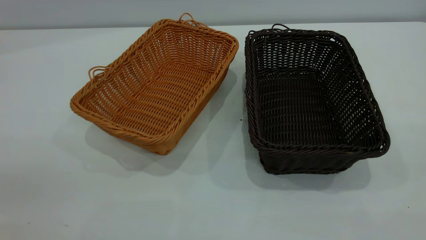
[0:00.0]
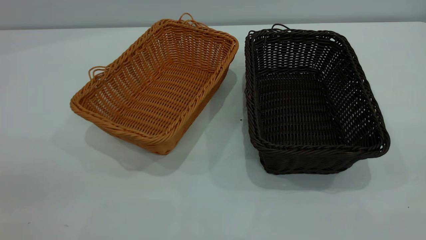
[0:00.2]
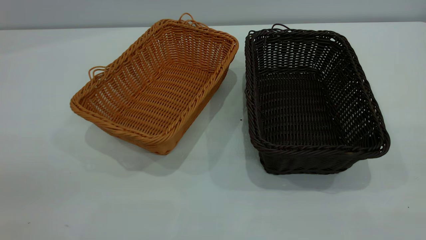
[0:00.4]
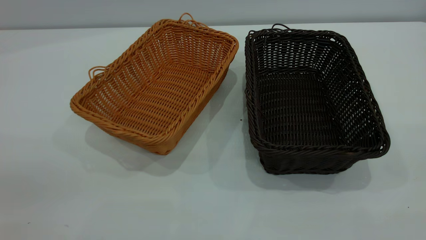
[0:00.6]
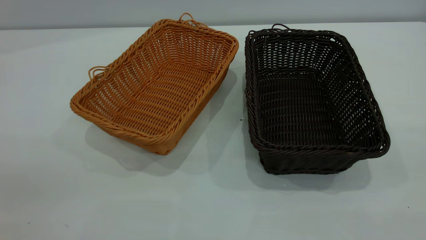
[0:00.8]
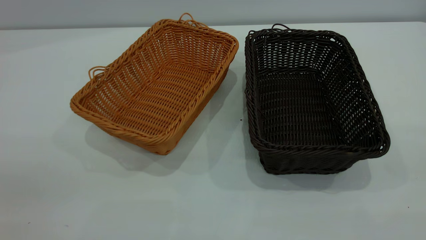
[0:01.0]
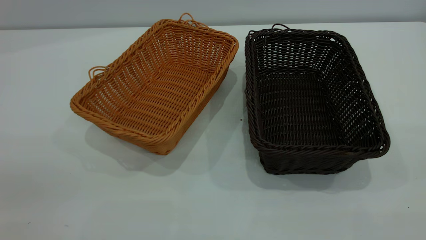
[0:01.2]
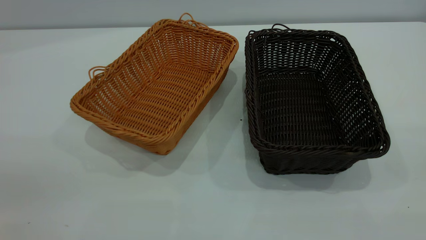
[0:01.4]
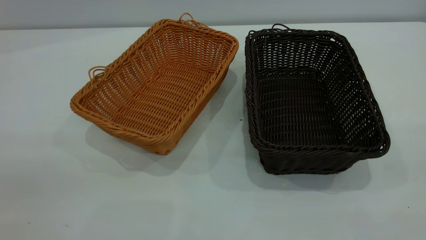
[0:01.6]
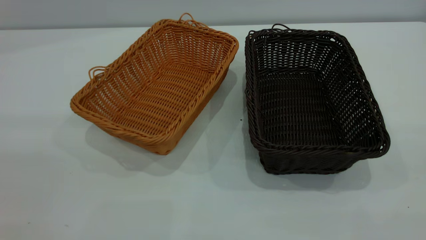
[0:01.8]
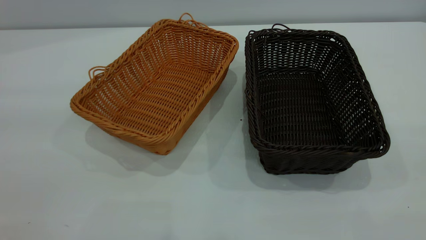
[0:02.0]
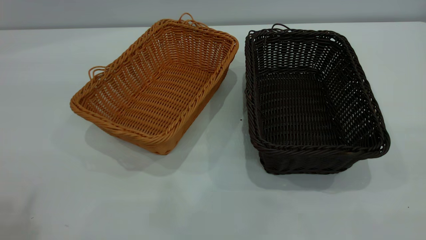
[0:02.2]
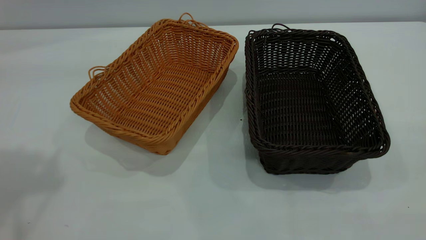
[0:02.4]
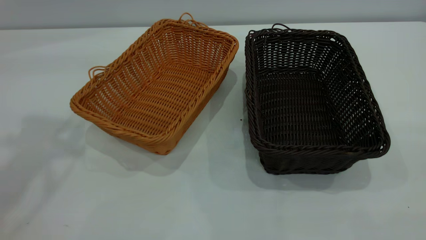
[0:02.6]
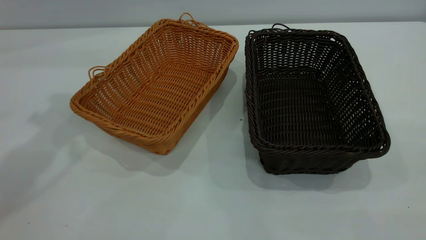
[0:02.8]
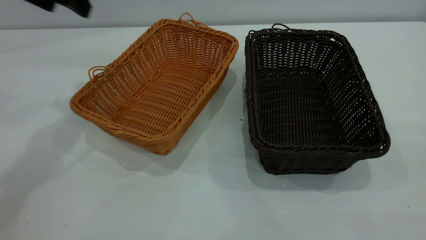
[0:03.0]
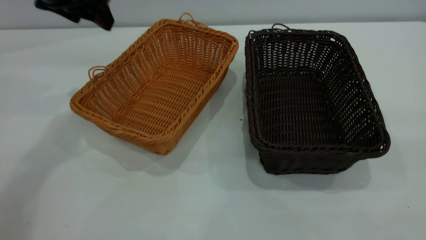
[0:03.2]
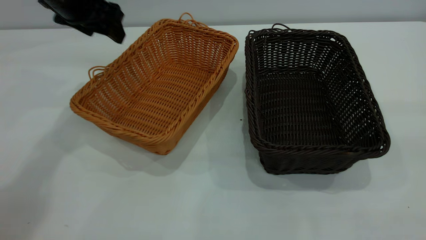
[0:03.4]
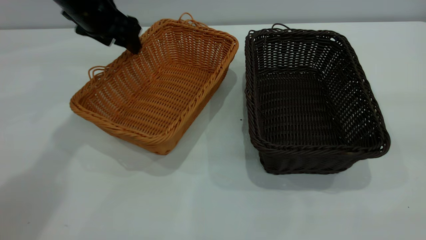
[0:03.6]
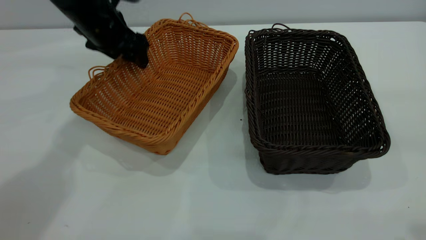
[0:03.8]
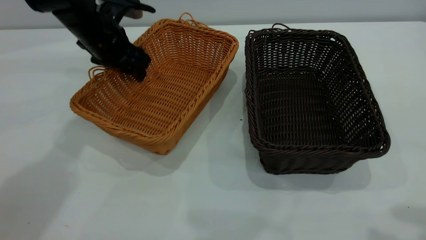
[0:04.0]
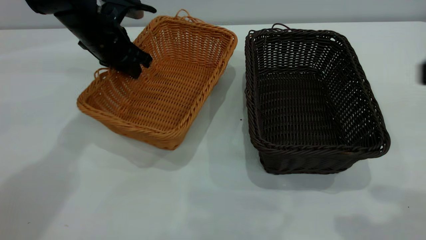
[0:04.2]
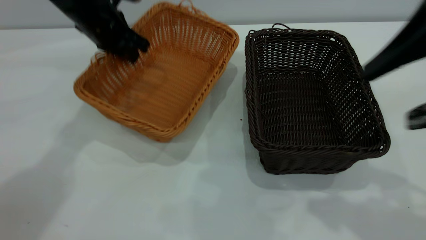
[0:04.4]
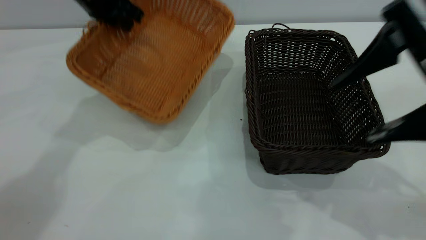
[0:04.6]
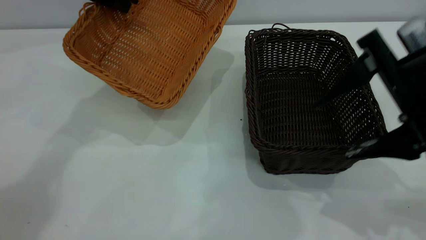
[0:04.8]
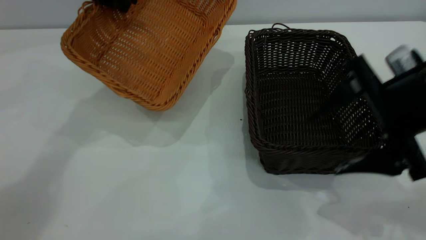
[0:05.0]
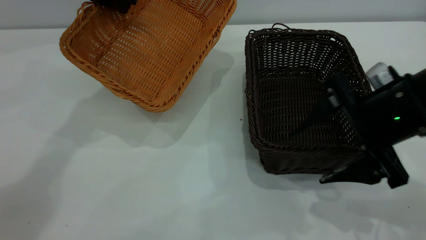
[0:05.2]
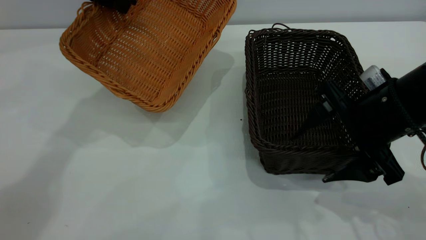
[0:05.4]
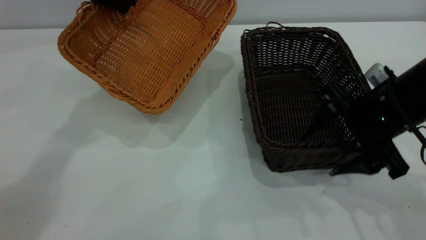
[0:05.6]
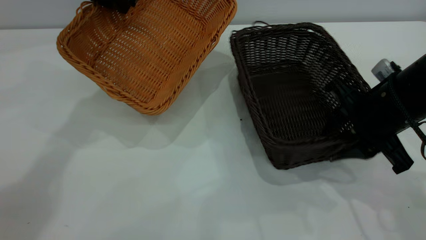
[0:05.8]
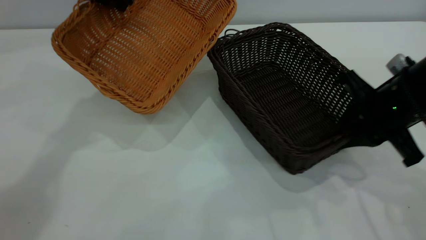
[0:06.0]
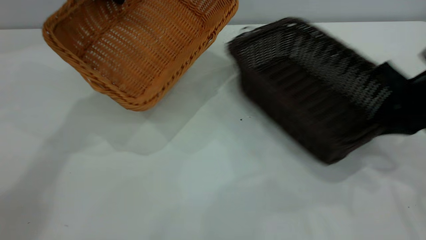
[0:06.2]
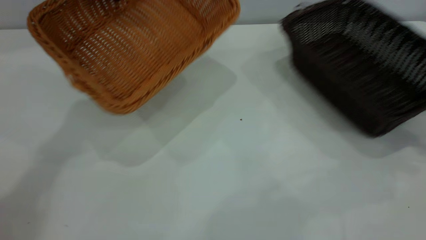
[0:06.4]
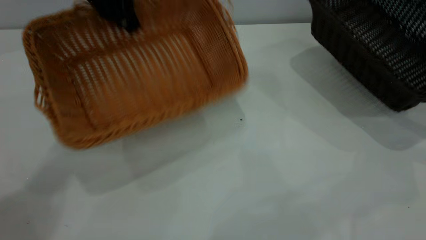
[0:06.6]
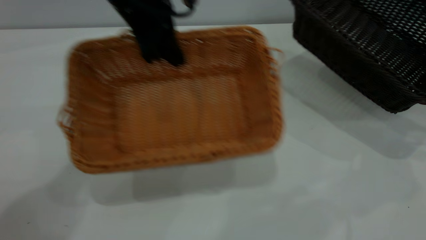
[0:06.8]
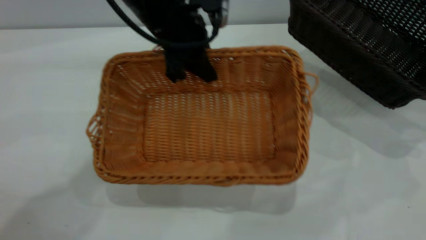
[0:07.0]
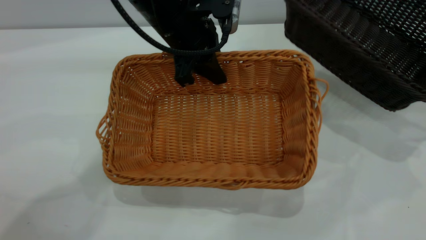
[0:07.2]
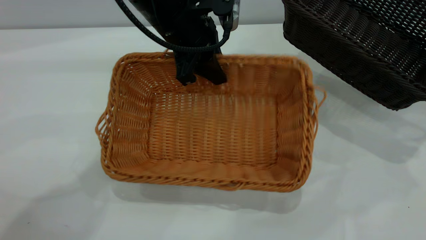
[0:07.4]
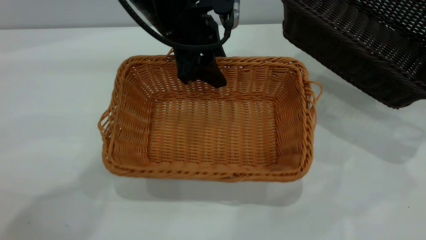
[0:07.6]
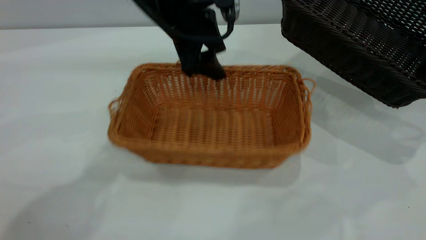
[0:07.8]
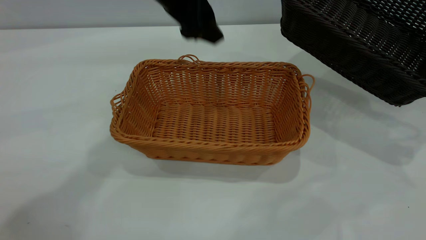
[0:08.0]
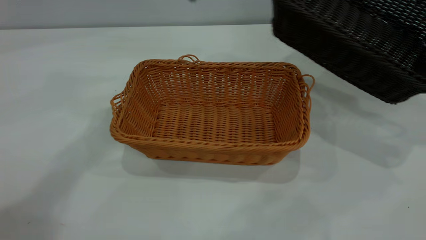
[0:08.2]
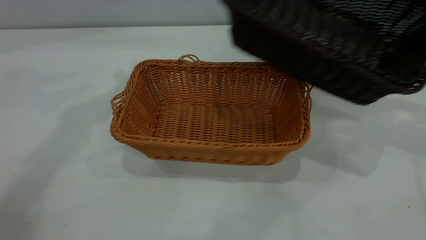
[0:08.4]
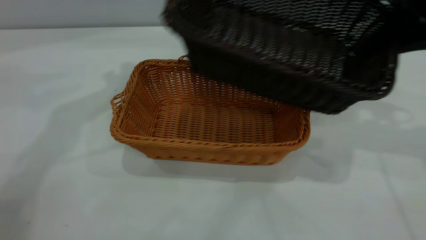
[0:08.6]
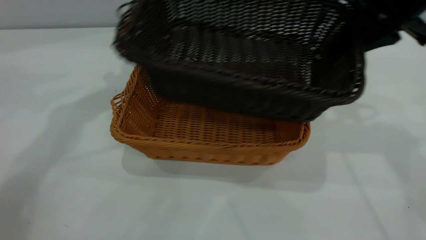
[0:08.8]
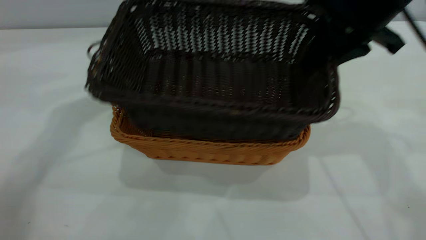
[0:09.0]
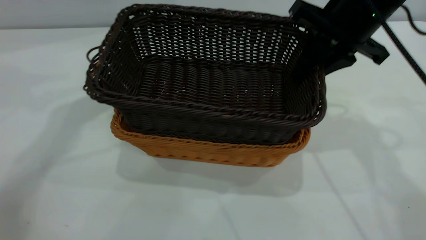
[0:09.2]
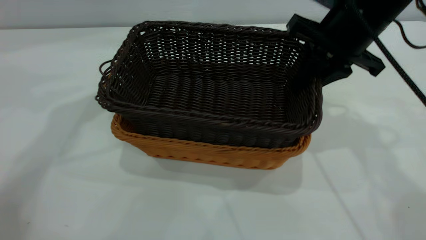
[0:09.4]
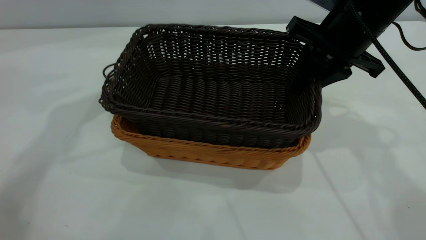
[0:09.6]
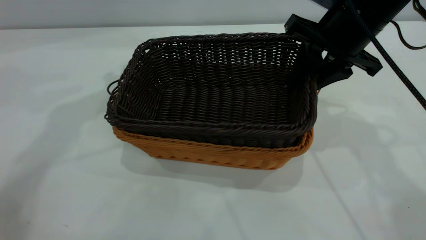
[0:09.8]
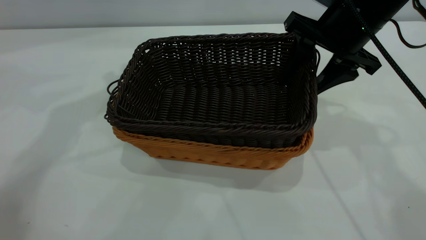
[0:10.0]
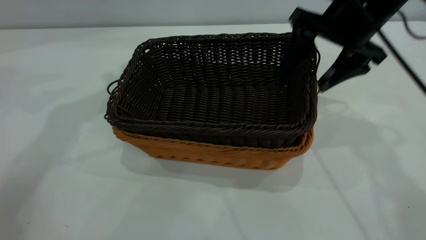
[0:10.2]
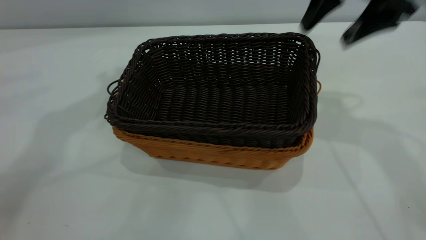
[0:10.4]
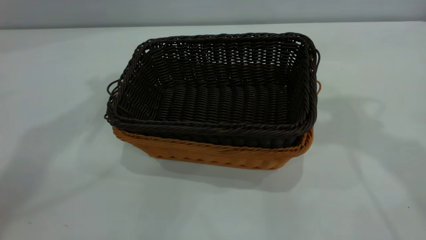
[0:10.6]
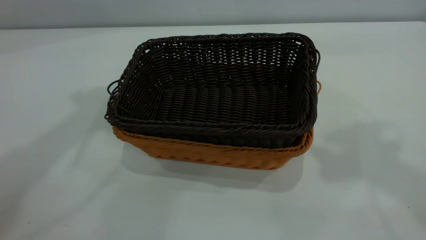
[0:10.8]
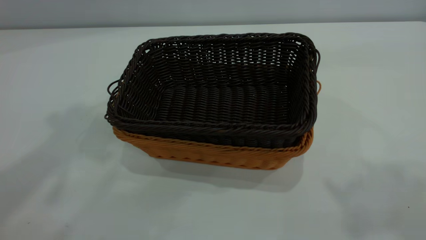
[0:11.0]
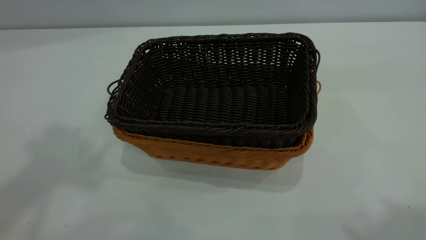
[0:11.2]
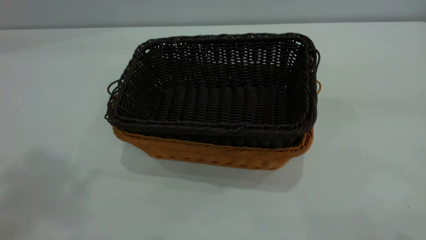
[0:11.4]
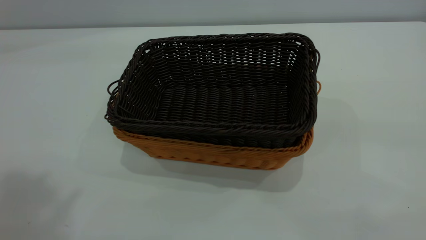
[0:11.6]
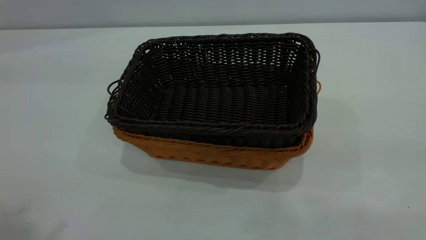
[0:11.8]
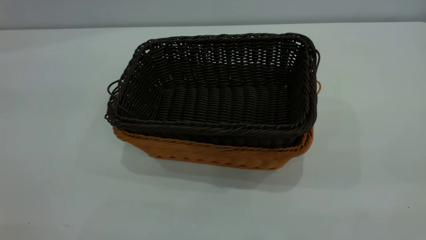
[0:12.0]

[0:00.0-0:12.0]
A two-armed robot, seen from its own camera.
Task of the whole recording: the left gripper grasp the brown basket and place it in the center of the table, the right gripper grasp the black basket and place it inside the brown one.
Step, 0:00.0 to 0:06.2: Pick up the light basket with the right gripper.
Step, 0:06.6 to 0:07.8: Place the light-colored basket in the center.
Step, 0:08.2 to 0:10.2: Place the dark basket on top of the light basket.
0:01.6 to 0:03.0: The left gripper goes about 40 cm forward.
0:03.0 to 0:04.4: The right gripper travels forward and downward by about 20 cm, while the left gripper heads downward and forward, covering roughly 10 cm, and closes.
0:04.4 to 0:06.0: The right gripper moves downward and forward, some 20 cm, and closes its fingers. The left gripper moves upward, some 10 cm.
0:06.0 to 0:07.6: The left gripper is displaced to the right, backward and downward by some 15 cm, and opens up; the right gripper moves to the right and upward, approximately 20 cm.
0:07.6 to 0:09.0: The left gripper is displaced to the left and upward by some 20 cm, while the right gripper shifts about 25 cm to the left.
0:09.0 to 0:10.4: Both grippers move upward, roughly 5 cm. The right gripper opens up.
0:10.4 to 0:12.0: Both grippers travel together backward, roughly 35 cm.
